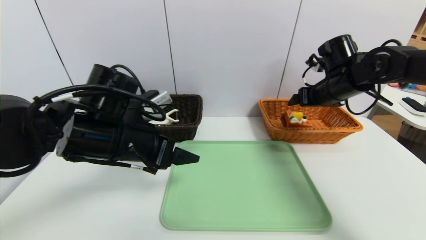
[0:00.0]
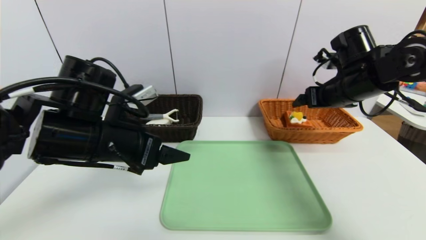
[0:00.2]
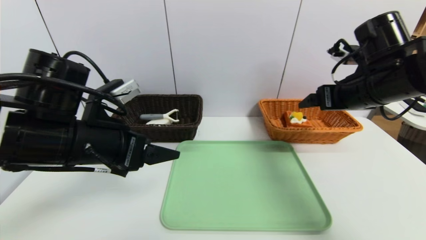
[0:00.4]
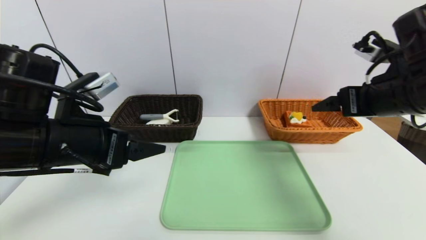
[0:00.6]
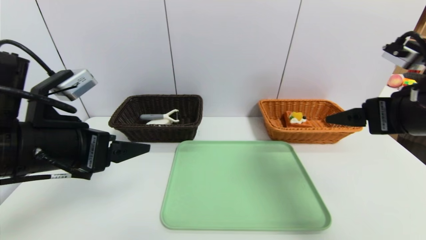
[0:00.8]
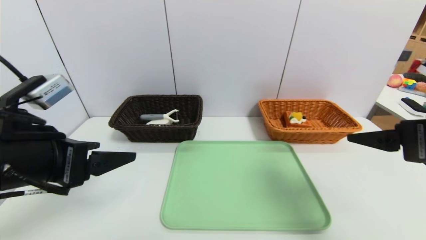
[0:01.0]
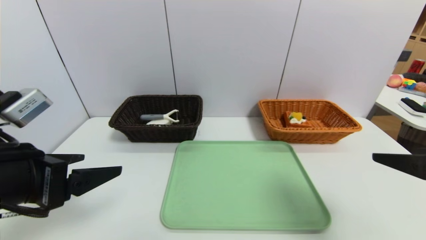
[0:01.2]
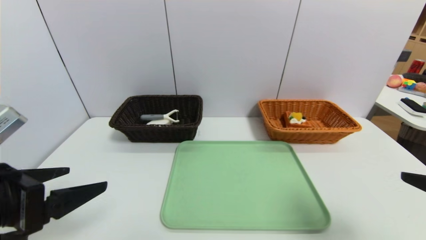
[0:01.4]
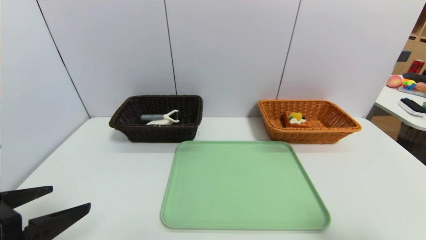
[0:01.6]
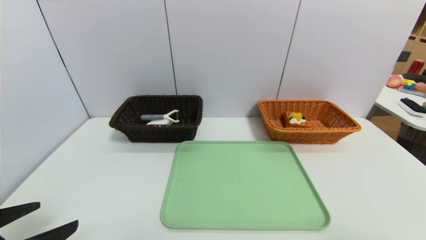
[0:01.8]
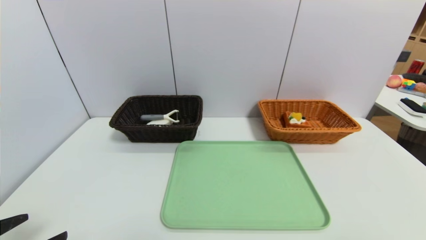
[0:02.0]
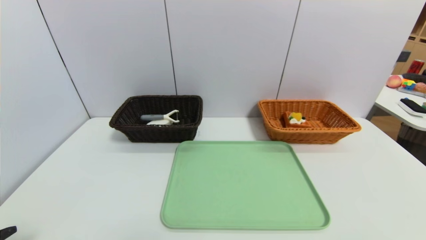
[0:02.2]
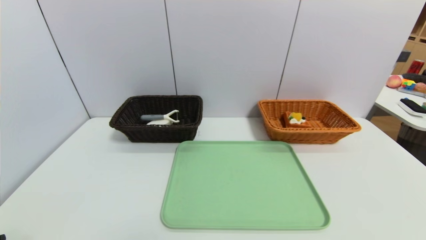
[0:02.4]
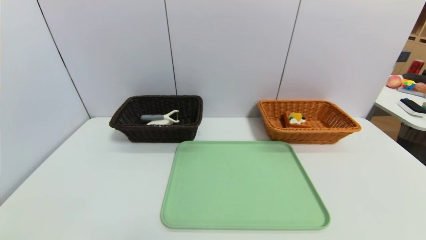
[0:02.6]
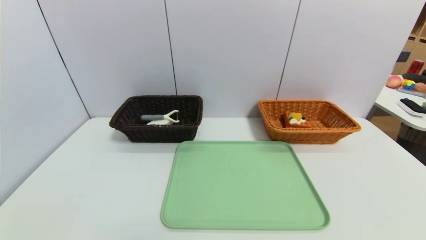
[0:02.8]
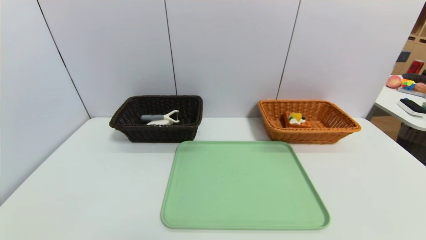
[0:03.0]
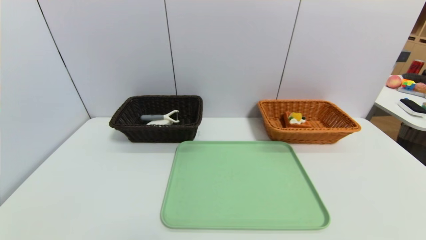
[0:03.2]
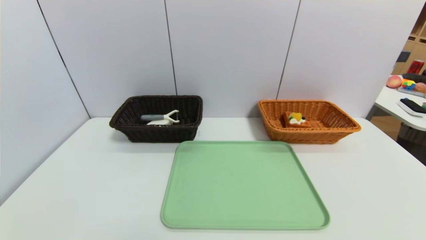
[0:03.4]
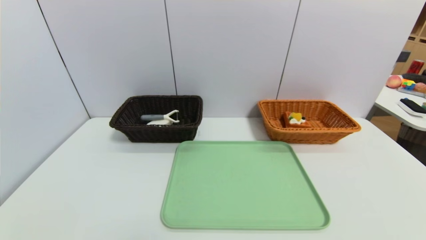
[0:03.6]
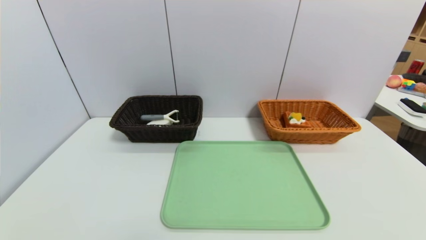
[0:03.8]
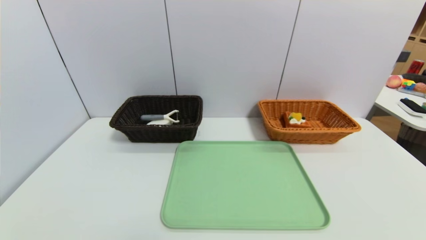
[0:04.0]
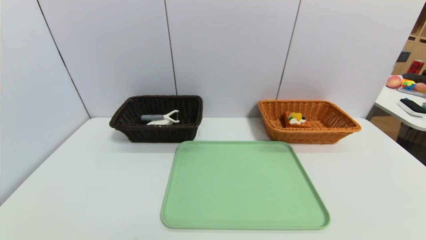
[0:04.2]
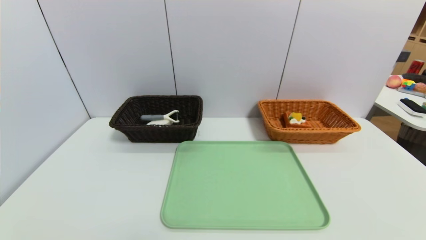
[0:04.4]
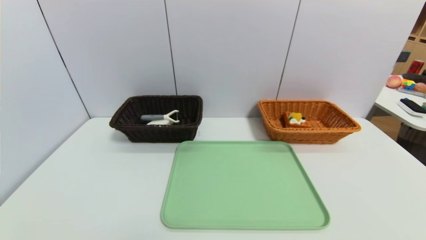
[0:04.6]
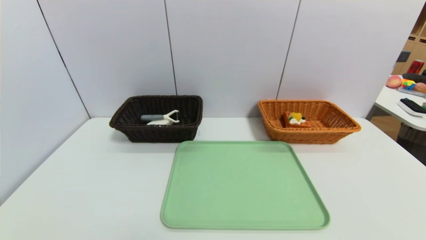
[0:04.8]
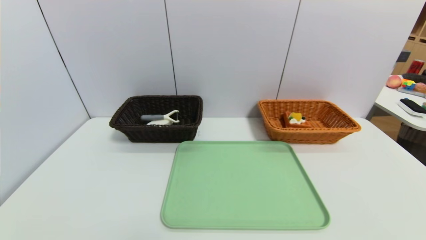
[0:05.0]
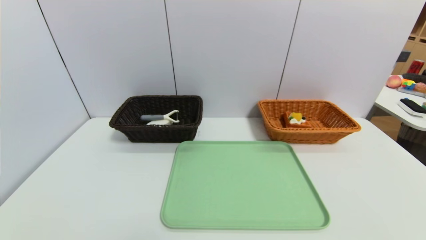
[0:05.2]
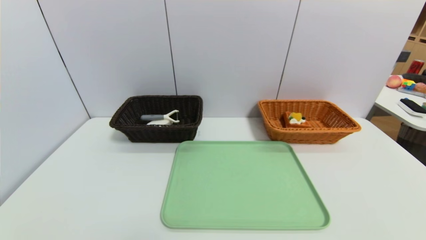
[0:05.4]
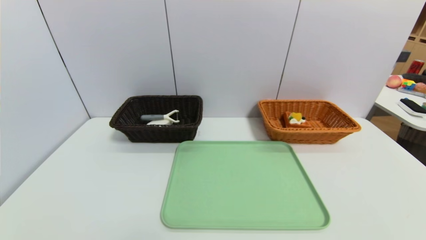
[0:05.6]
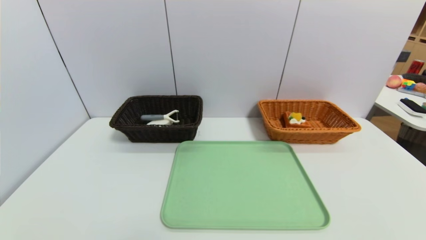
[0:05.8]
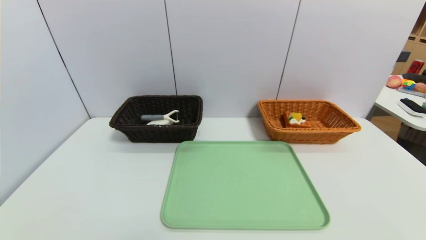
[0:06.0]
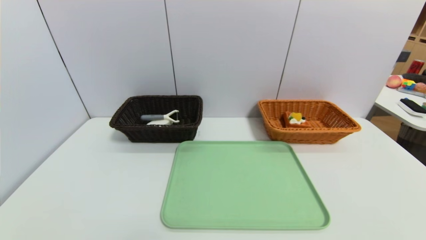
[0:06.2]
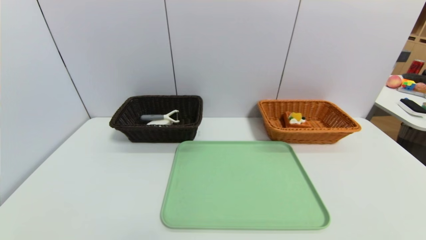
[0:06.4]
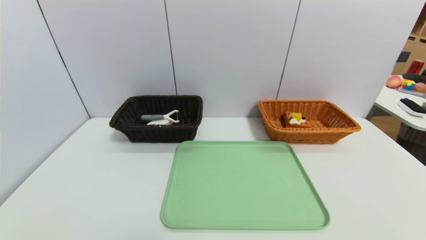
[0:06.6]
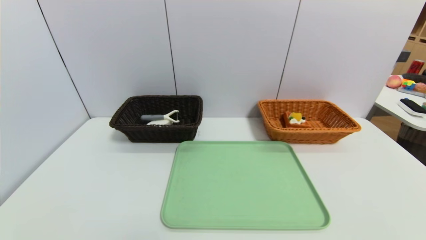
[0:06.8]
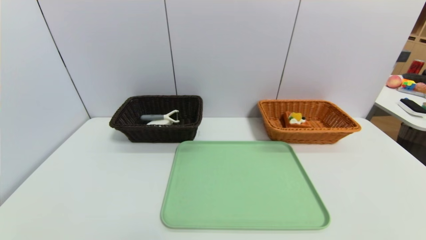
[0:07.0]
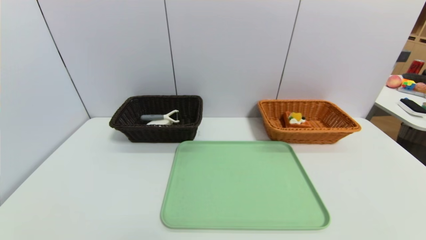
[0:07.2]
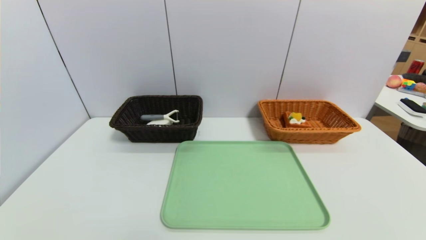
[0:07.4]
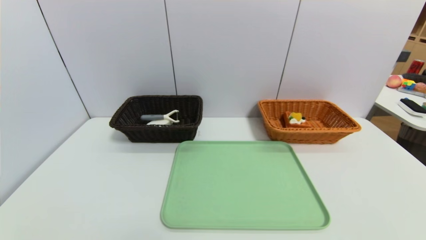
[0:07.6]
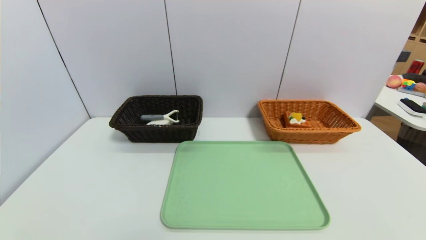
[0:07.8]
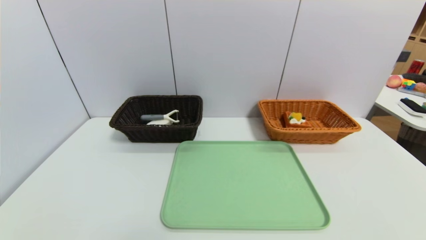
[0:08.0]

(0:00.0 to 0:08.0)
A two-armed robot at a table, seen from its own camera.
Task of the whole recording: place the food in the right basket with the right gripper, and place the non food items in the left basket with the left gripper.
0:00.0 - 0:01.6: The left gripper is displaced backward and to the left by about 20 cm. The right gripper is displaced backward by about 35 cm.
0:01.6 - 0:03.2: The left gripper is displaced backward and downward by about 15 cm, while the right gripper shifts roughly 10 cm backward.
0:06.4 - 0:08.0: The two grippers keep their place.

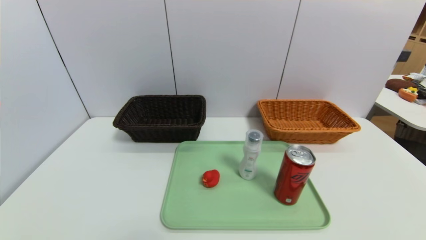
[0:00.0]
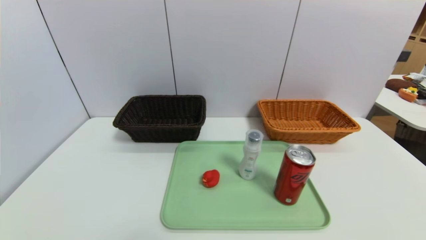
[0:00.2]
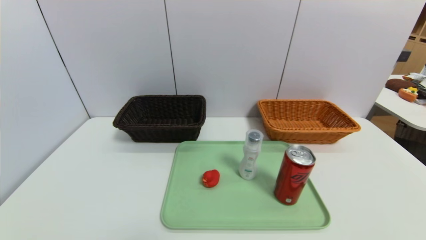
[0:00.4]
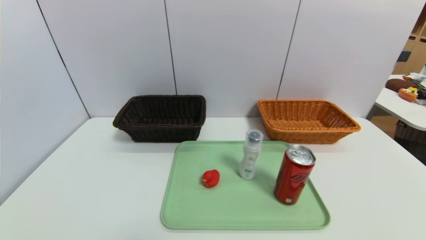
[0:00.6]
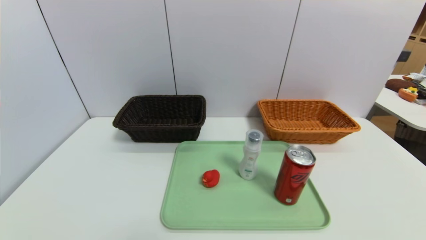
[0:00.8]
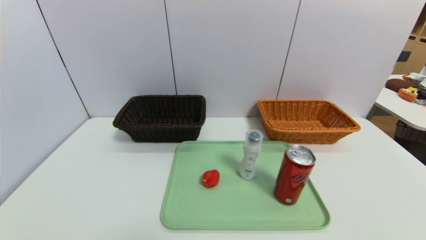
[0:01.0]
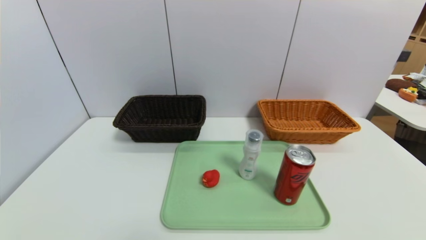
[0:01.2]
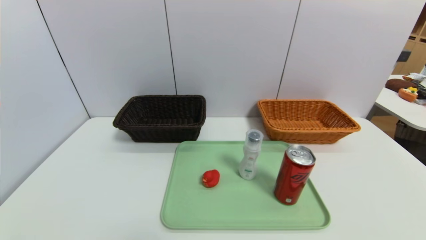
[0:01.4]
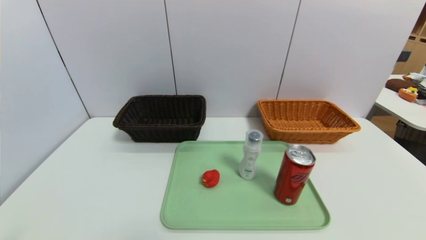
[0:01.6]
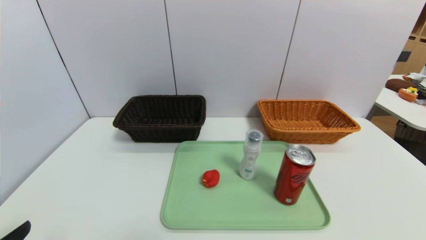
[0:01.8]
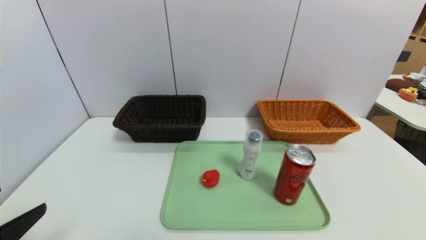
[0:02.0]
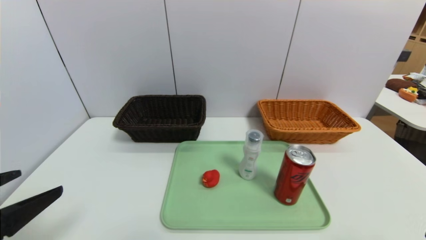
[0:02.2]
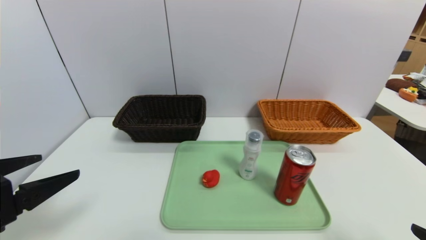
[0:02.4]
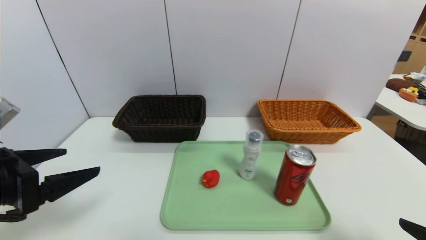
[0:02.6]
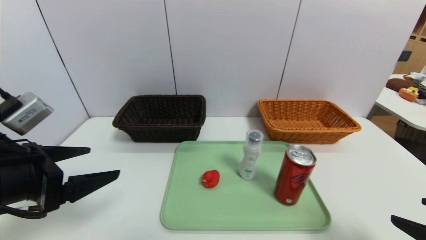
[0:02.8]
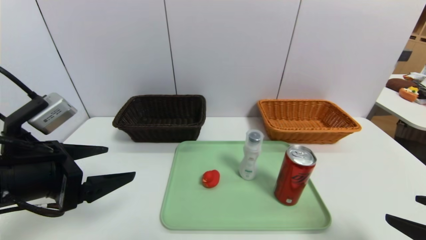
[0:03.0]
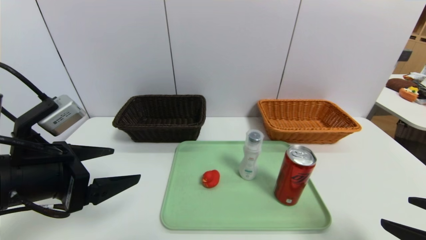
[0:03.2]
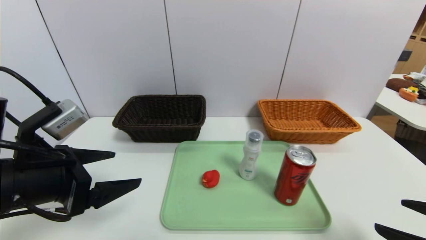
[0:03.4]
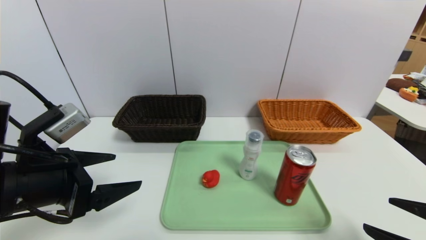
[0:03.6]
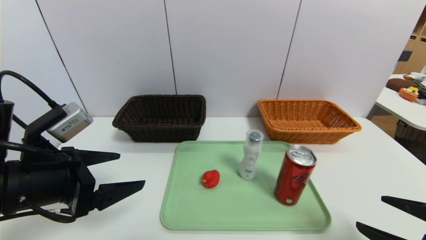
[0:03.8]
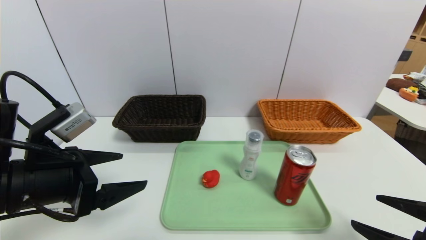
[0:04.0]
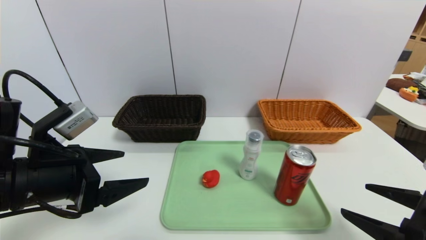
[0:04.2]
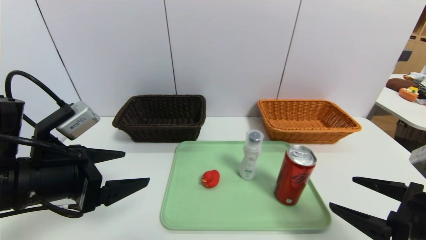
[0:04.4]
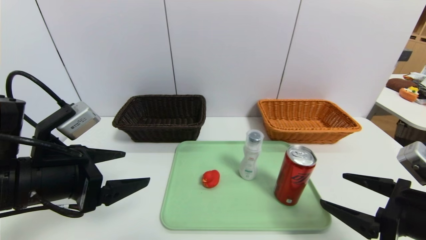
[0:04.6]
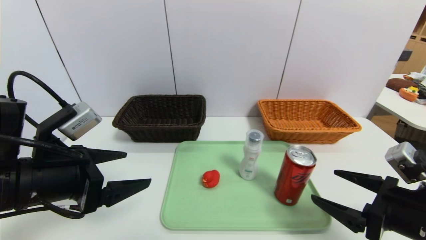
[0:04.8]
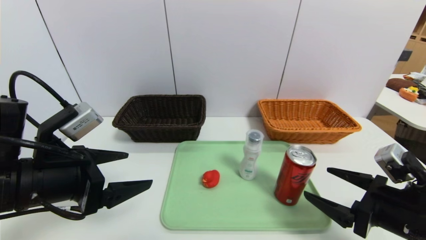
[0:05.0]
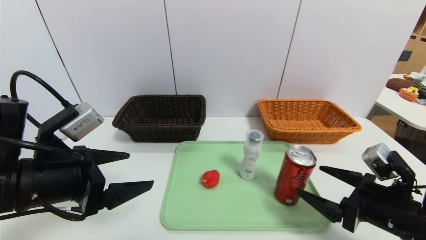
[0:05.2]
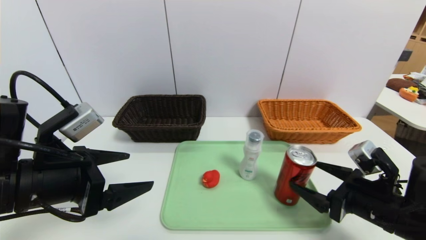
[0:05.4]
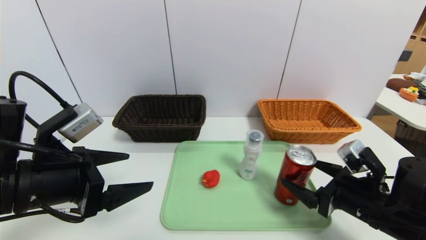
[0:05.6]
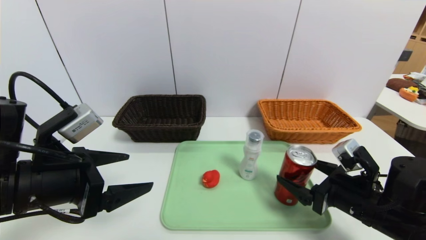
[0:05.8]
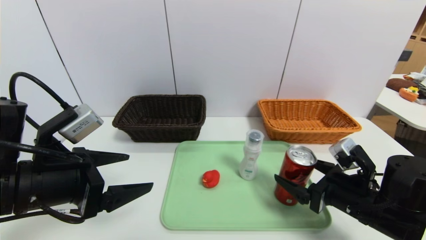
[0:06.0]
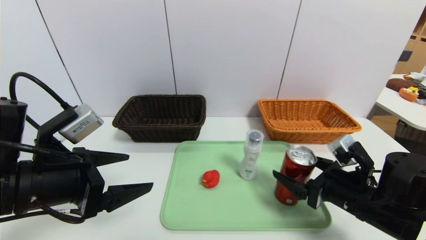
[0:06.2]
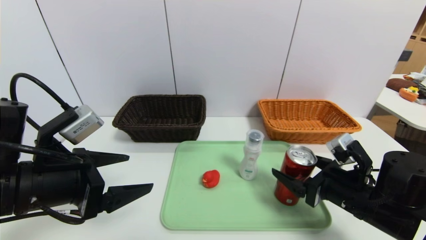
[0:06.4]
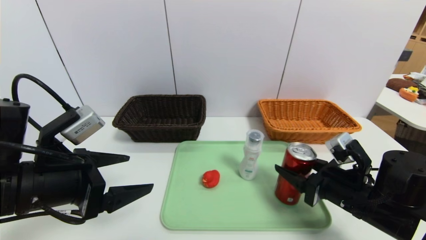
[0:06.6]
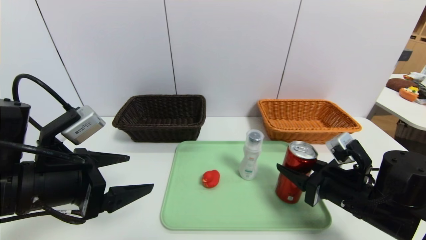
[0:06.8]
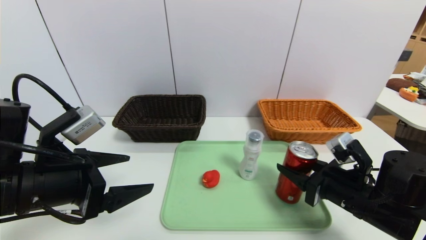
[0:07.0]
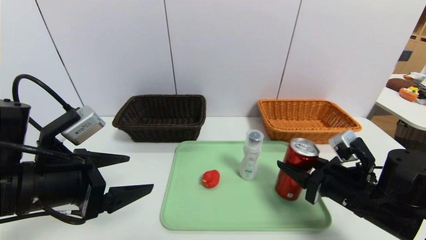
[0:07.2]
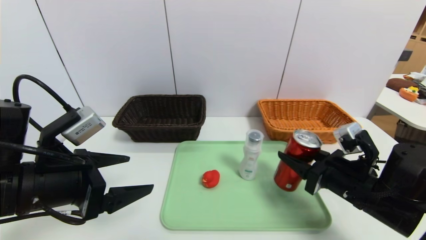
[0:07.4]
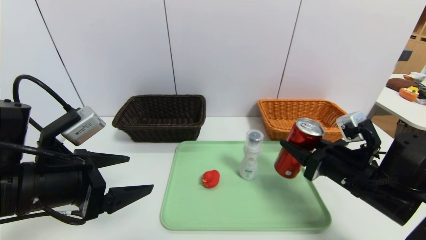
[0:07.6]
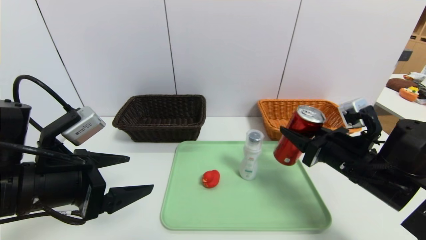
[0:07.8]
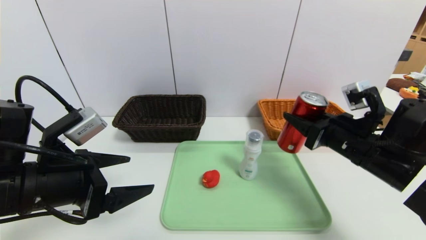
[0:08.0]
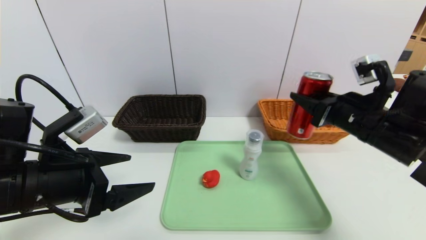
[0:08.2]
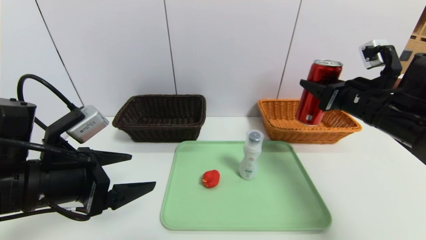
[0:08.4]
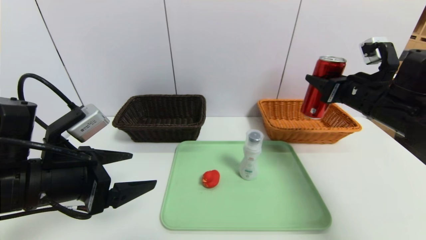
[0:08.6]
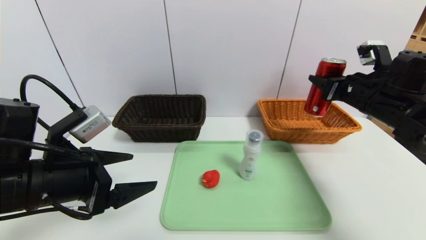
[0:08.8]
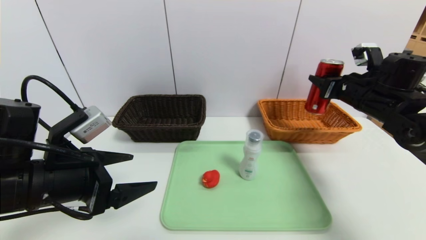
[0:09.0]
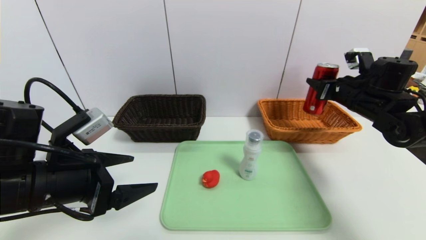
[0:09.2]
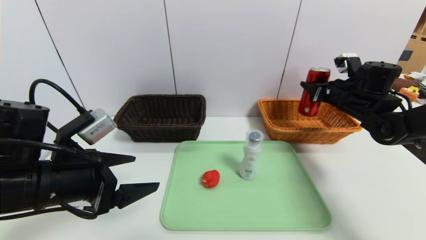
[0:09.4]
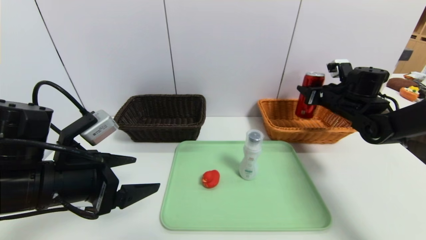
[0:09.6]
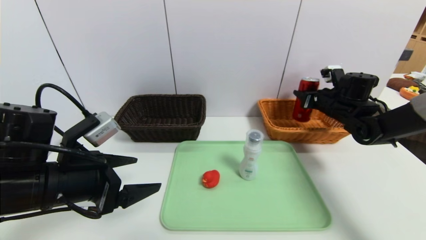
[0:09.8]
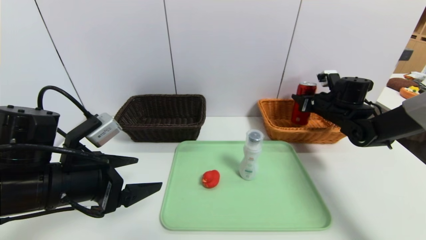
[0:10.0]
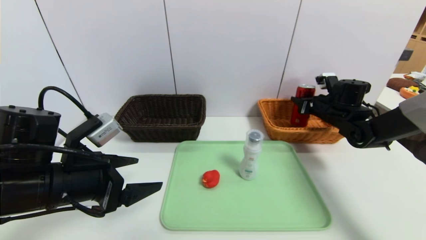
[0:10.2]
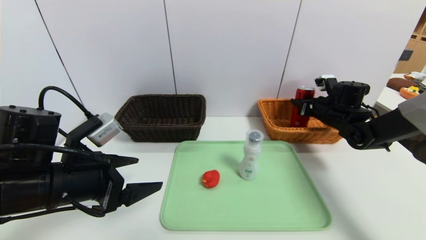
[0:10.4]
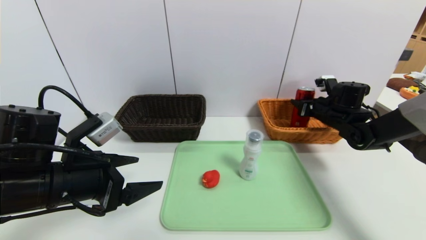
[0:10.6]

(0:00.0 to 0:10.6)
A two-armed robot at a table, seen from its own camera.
Task of the whole recording: place the food in the right basket with the right gripper, and place the non food items in the left basket with the left gripper.
0:01.6 - 0:03.0: The grippers both shift forward and upward by about 15 cm.
0:03.0 - 0:04.6: The right gripper is displaced forward by about 5 cm.
0:04.6 - 0:06.0: The right gripper heads forward, covering approximately 5 cm.
0:06.0 - 0:07.6: The right gripper closes its fingers.
0:07.6 - 0:09.0: The right gripper moves forward, upward and to the right, some 20 cm.
0:09.0 - 0:10.6: The right gripper moves downward and forward, some 10 cm.
